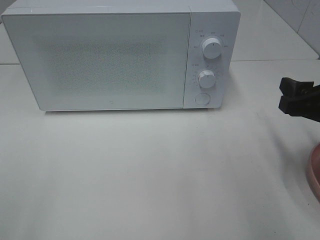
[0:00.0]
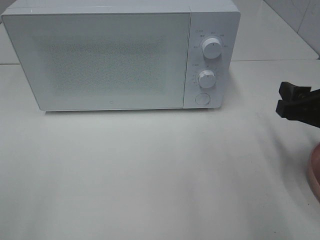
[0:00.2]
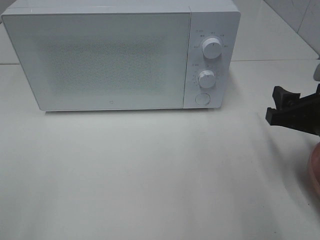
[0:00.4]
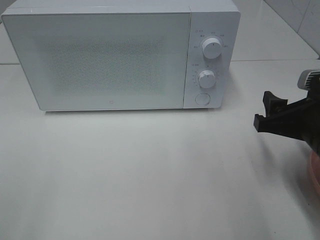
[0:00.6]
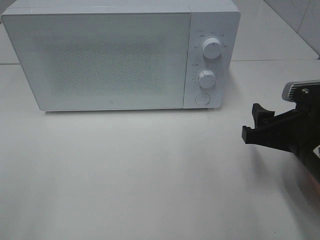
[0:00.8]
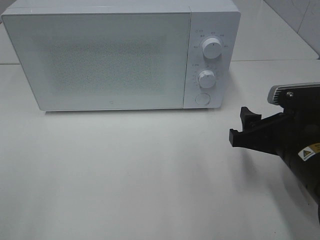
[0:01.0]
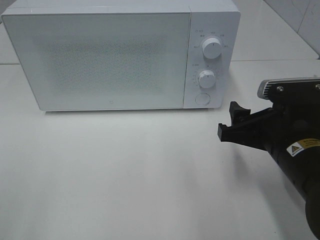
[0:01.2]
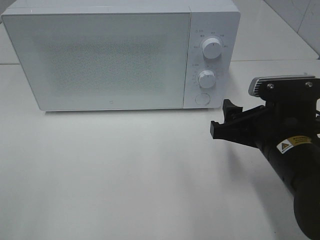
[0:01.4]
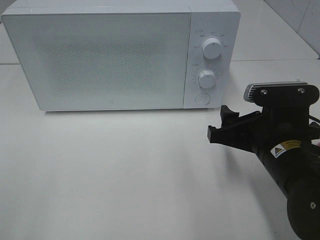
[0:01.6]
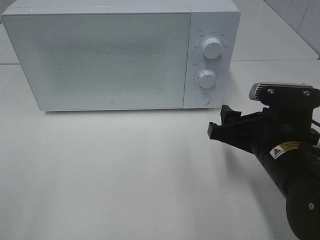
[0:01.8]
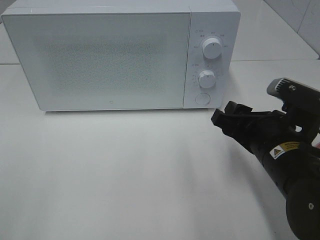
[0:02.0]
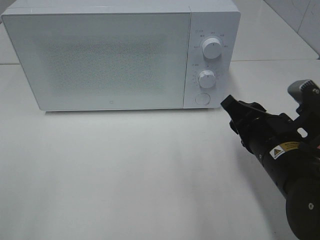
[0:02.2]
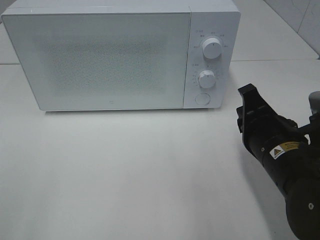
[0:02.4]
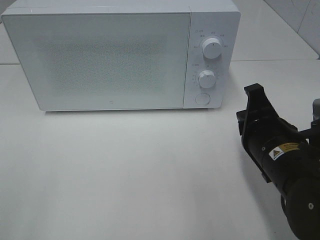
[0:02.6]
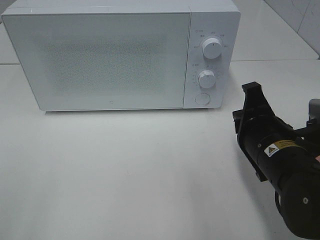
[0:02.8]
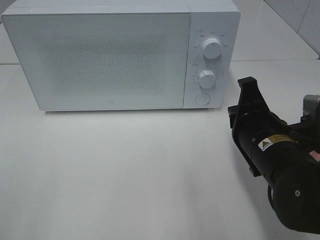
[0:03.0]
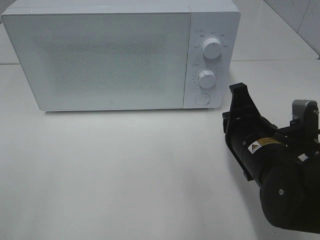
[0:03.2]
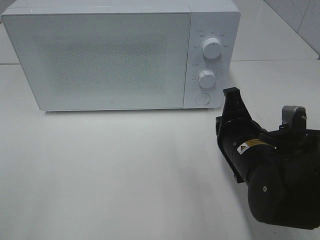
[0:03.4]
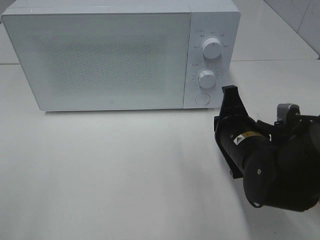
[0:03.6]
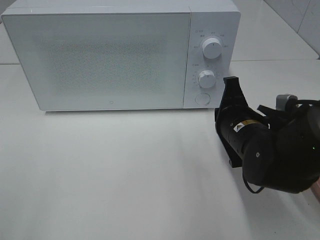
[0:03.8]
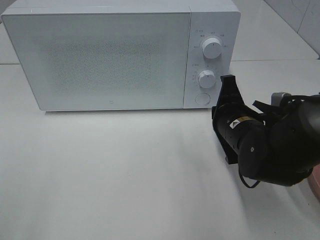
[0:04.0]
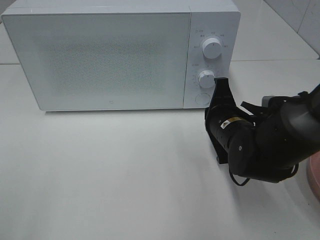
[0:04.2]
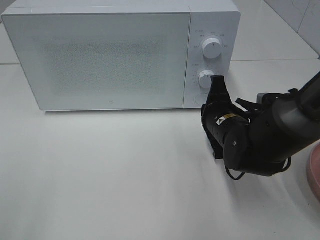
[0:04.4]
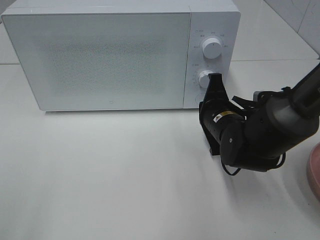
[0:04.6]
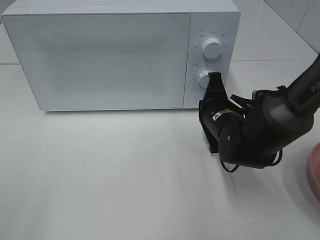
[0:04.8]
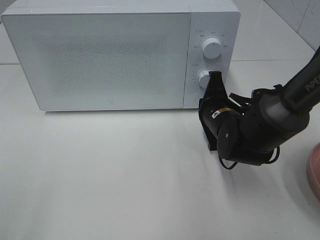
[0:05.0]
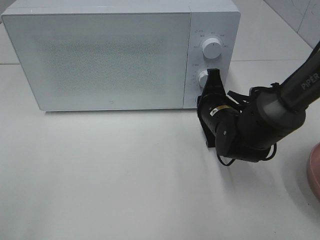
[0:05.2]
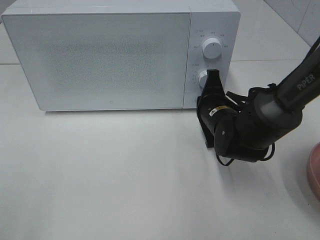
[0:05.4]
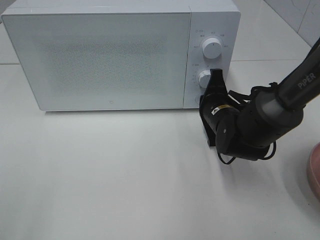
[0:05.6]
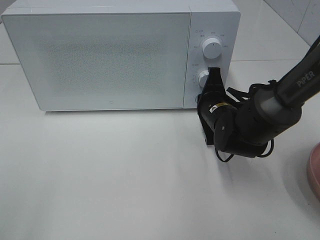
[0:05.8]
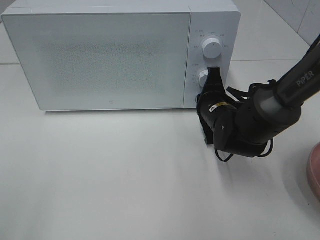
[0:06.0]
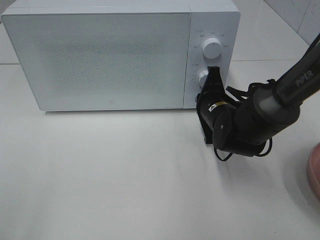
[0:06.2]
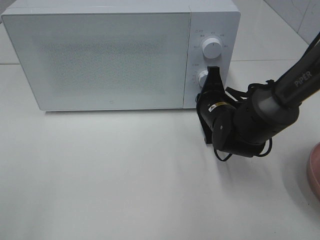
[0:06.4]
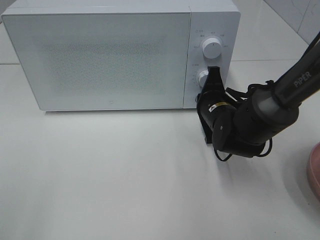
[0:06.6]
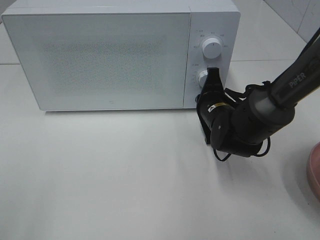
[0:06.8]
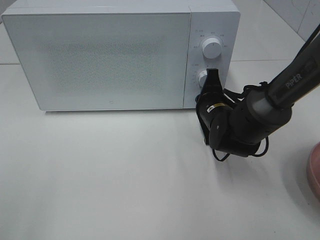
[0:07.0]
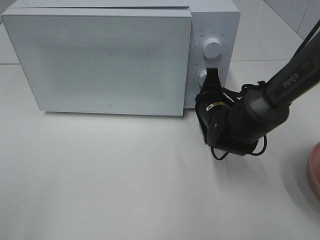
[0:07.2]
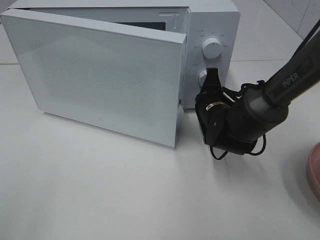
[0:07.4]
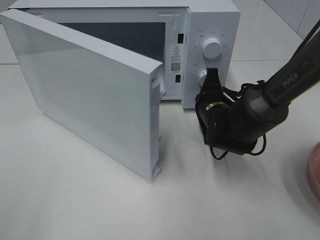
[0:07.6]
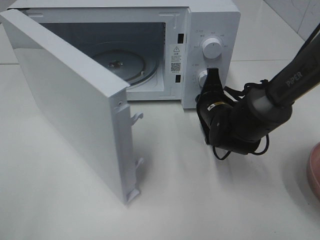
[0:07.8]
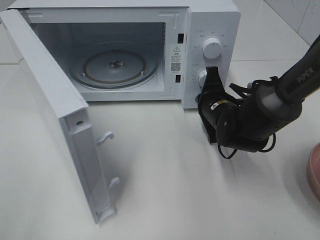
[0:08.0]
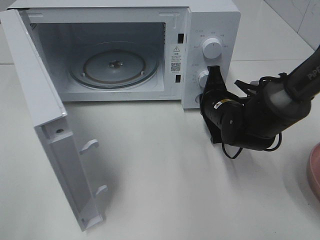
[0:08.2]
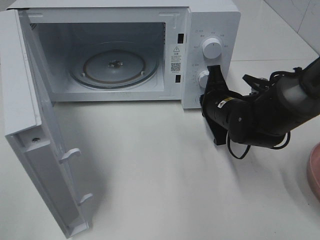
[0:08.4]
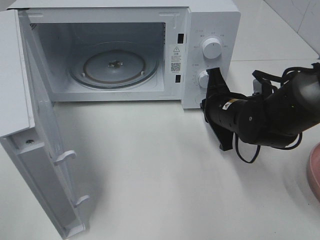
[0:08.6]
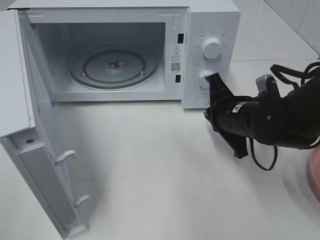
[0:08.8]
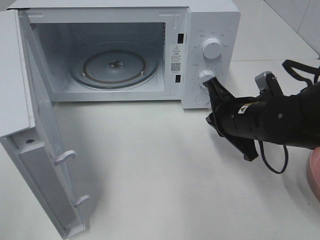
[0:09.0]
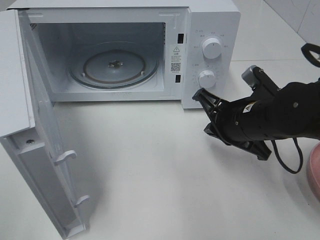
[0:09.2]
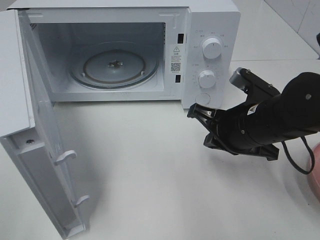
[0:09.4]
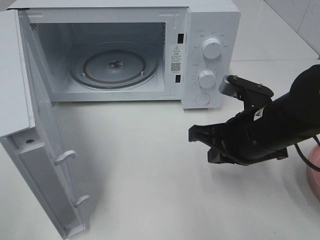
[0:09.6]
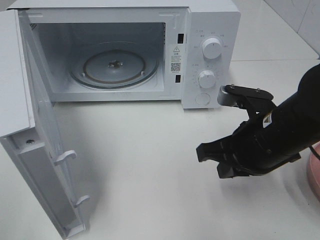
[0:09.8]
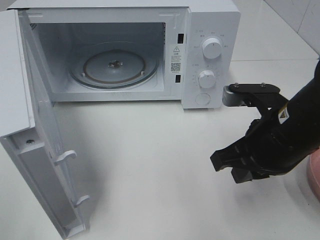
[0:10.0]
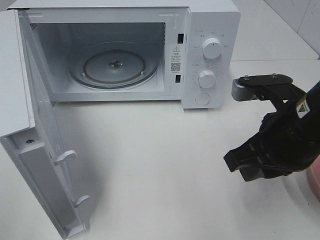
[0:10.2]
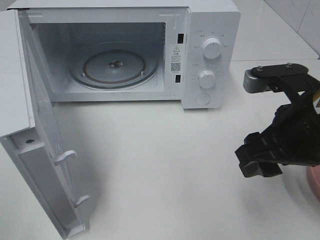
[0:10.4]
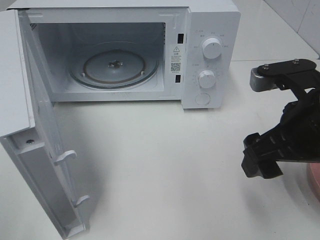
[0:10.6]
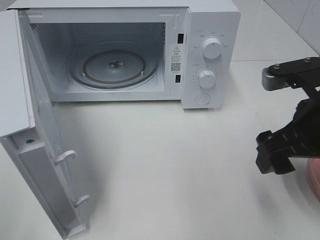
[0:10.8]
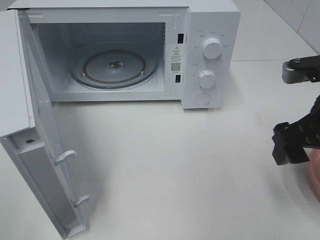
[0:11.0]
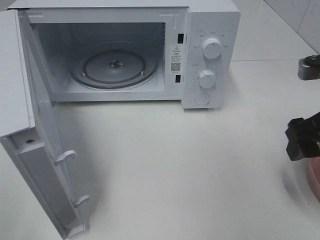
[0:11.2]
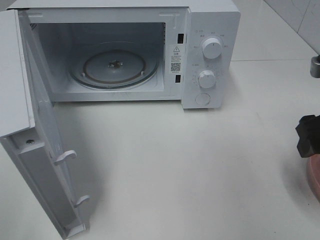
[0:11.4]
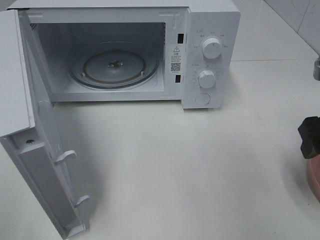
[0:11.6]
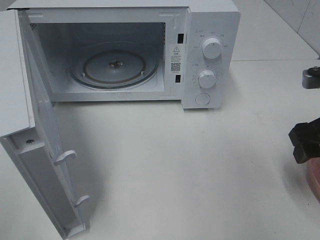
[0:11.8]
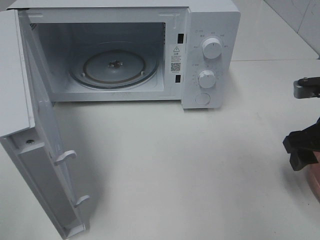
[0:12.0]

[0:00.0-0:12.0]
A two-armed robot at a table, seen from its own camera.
Task of the whole recording: Heat the burger.
Step, 0:00.0 to 0:08.4: Right hand: press the switch.
0:00.0 to 0:01.6: The right gripper is displaced to the left by about 10 cm.
0:01.6 to 0:03.0: The right gripper closes its fingers.
0:03.0 to 0:04.4: The right gripper shifts about 10 cm forward.
0:04.4 to 0:06.0: There are only small adjustments of the grippers.
0:07.6 to 0:09.0: The right gripper heads backward and upward, covering some 10 cm.
0:09.0 to 0:10.4: The right gripper goes some 15 cm upward and backward, and opens up.
0:10.4 to 0:12.0: The right gripper is displaced to the right, forward and downward by roughly 10 cm.

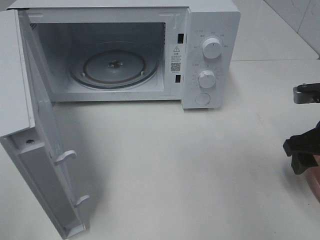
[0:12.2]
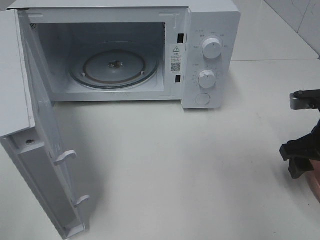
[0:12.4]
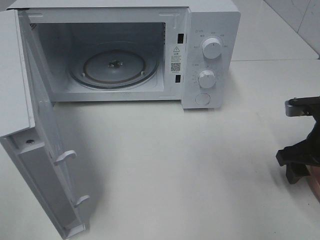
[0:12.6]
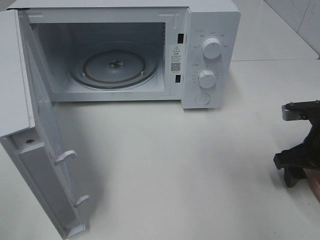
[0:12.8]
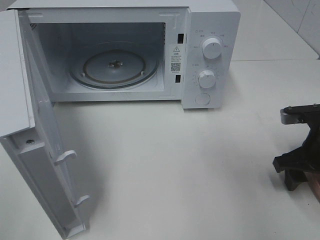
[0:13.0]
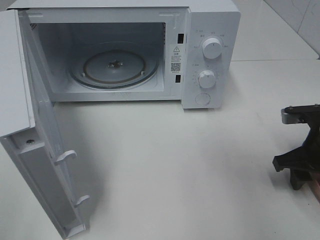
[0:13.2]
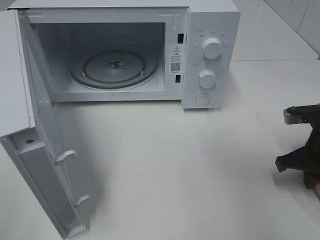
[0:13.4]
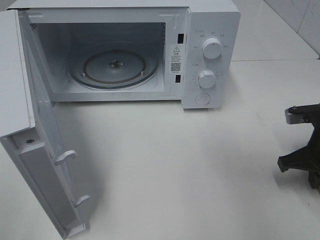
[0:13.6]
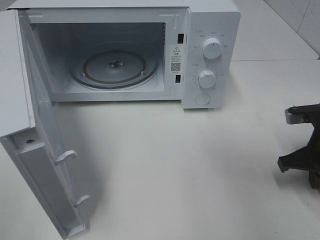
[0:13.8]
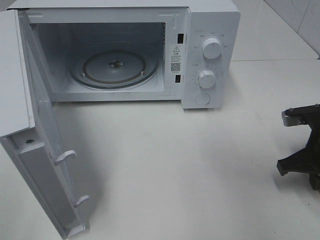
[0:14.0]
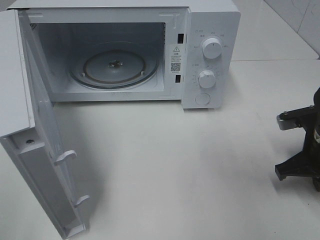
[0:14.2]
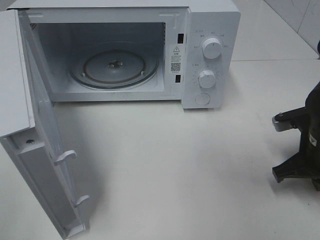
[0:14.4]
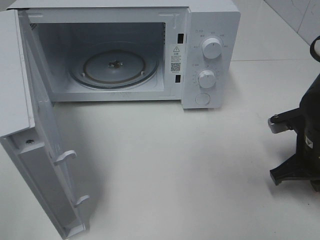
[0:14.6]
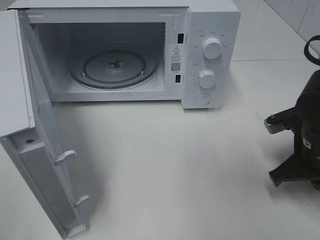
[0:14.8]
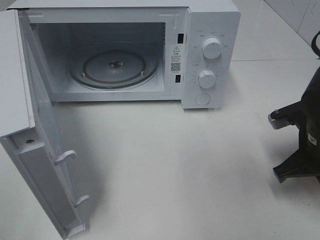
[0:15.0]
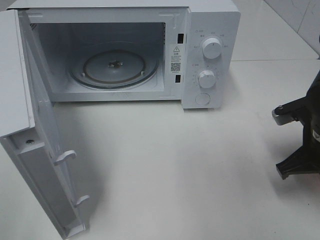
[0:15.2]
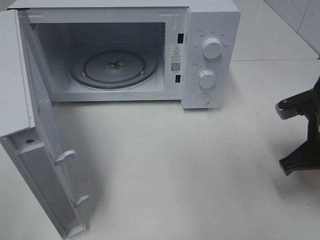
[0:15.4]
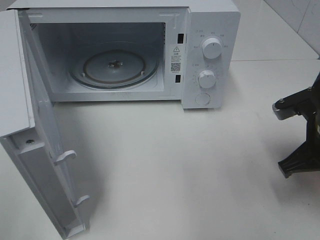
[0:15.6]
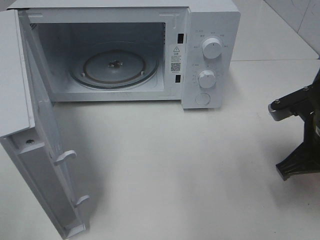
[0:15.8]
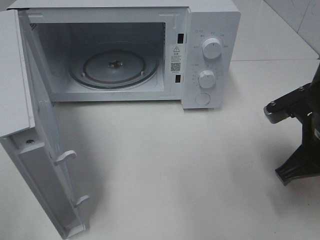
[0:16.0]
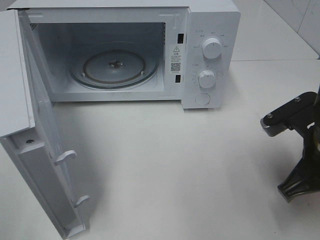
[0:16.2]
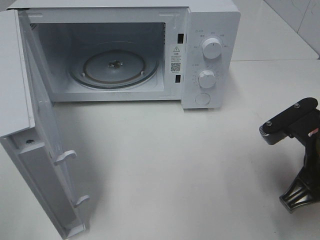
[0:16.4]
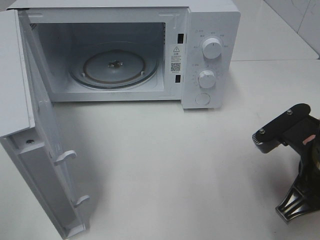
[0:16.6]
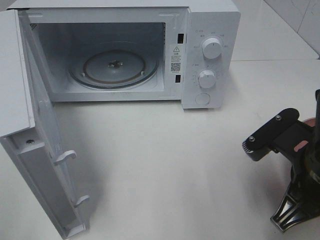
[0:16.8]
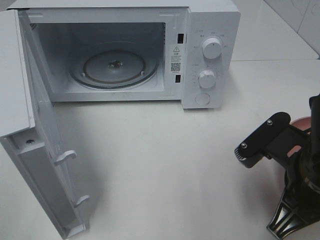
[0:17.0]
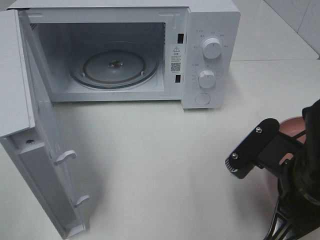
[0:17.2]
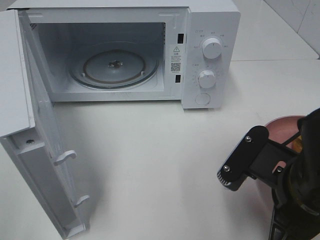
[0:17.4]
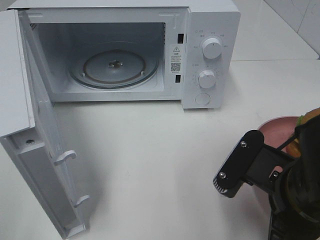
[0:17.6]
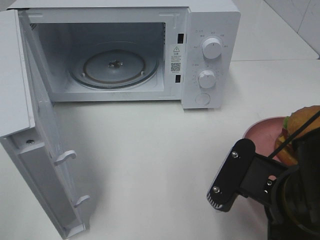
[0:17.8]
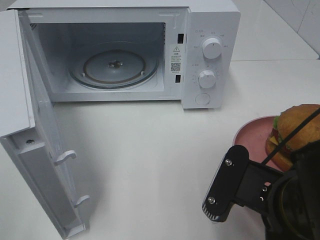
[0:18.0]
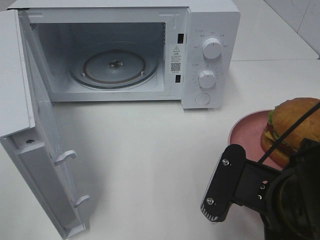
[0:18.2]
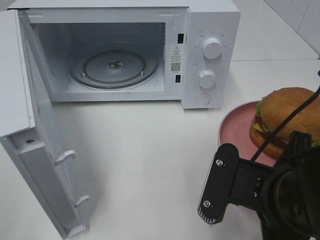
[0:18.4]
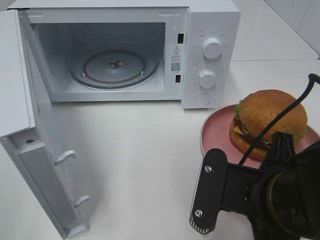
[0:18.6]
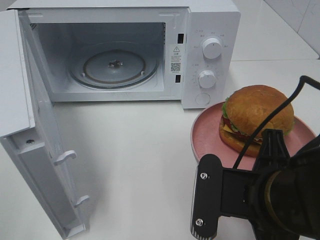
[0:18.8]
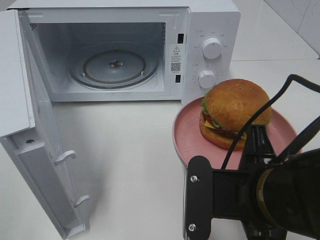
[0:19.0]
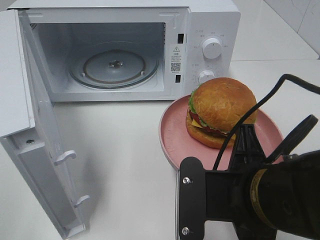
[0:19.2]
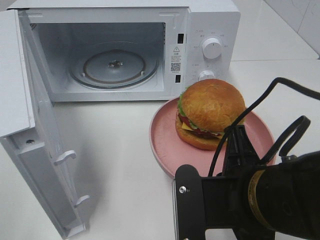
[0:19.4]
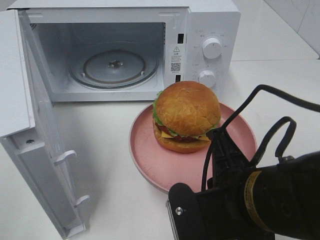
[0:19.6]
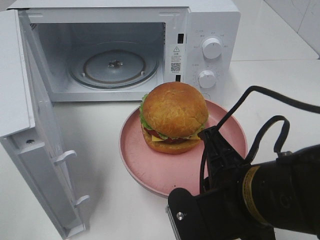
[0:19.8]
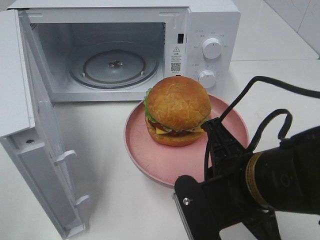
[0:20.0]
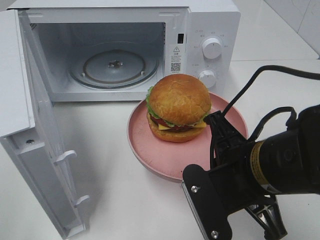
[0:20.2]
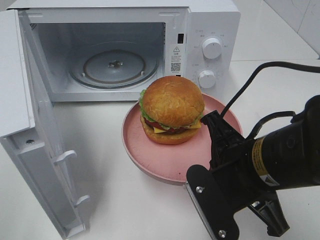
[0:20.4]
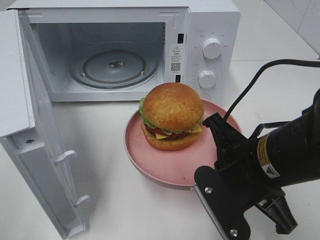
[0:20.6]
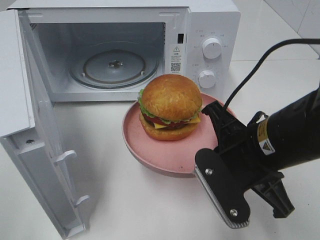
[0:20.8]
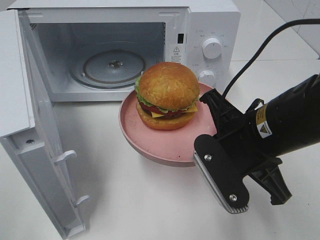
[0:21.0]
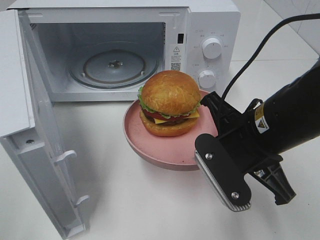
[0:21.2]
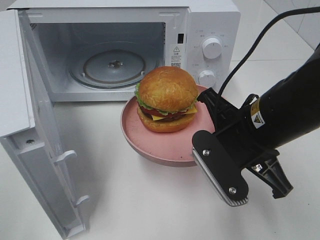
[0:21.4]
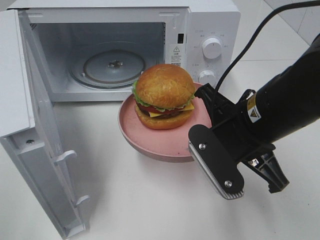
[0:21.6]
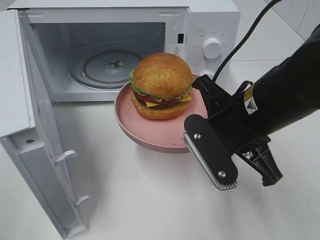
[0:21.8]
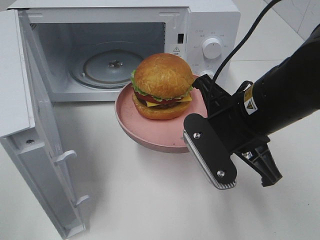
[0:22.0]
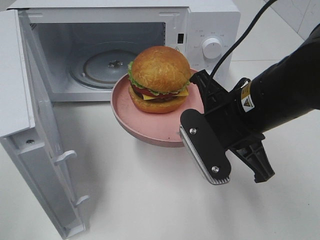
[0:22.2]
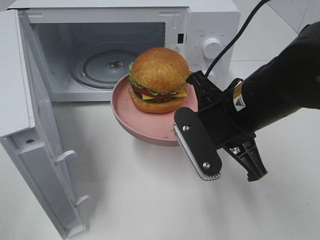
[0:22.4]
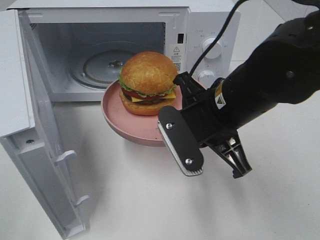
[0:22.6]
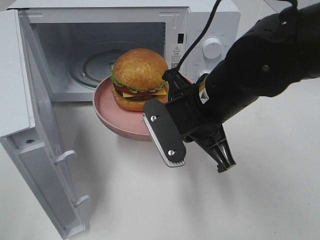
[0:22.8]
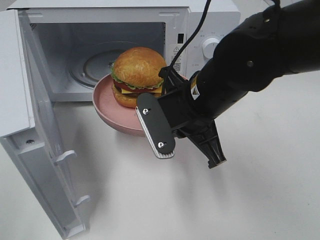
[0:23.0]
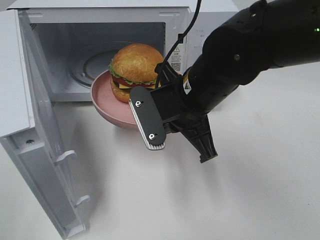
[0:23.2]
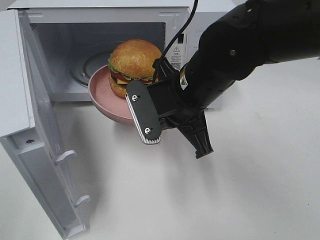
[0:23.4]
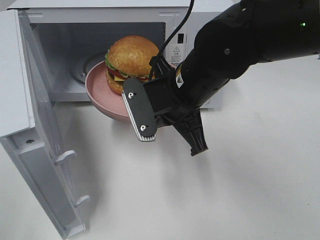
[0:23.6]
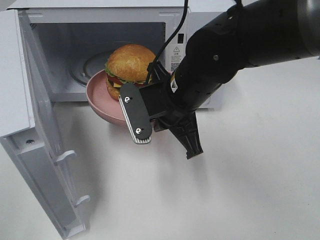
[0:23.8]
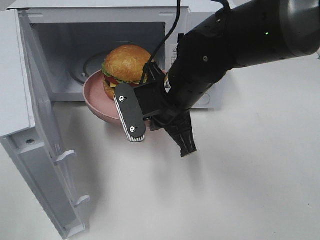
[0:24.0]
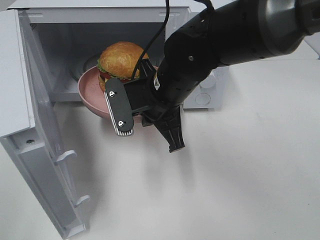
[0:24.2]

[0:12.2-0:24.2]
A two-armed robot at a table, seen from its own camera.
Task of the whole recording: Heat the burger.
Step, 0:12.2 to 0:14.2: Right hand: grab the plate with the hamburger.
0:12.2 to 0:13.8: The right gripper closes up.
0:13.8 to 0:15.2: The grippers stay close to where they were, moving slightly.
0:15.2 to 0:16.6: The right gripper heads backward and to the left, covering about 10 cm.
0:16.6 to 0:18.2: The right gripper is displaced to the left and backward by some 10 cm.
0:19.8 to 0:21.2: The right gripper heads forward, covering roughly 10 cm.
0:21.2 to 0:22.6: The right gripper moves about 5 cm.
0:22.6 to 0:24.2: The right gripper moves to the left and forward, roughly 10 cm.
